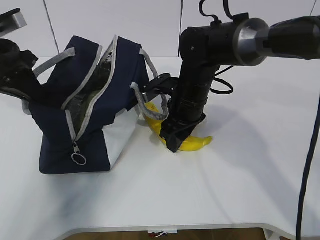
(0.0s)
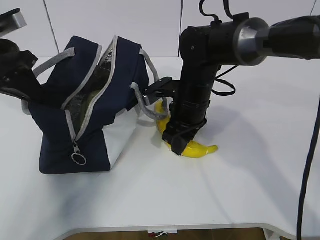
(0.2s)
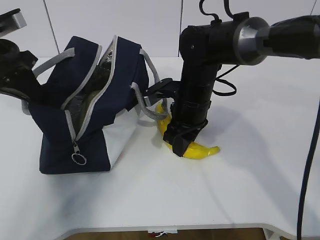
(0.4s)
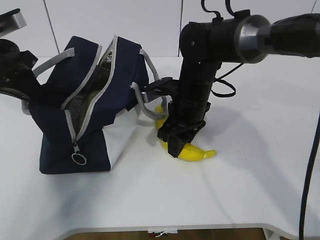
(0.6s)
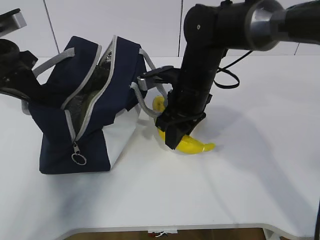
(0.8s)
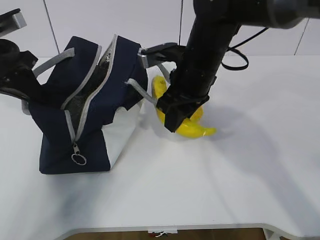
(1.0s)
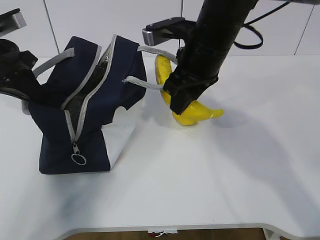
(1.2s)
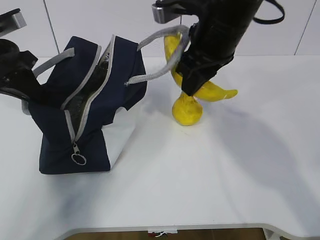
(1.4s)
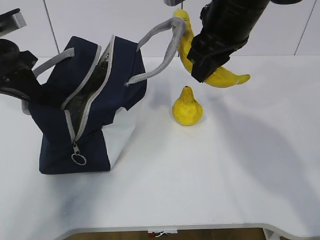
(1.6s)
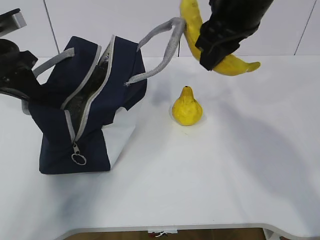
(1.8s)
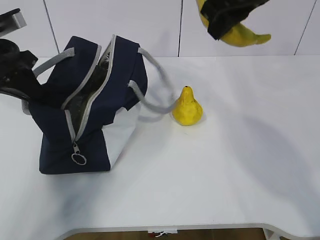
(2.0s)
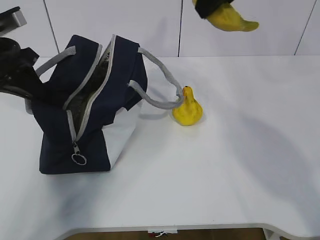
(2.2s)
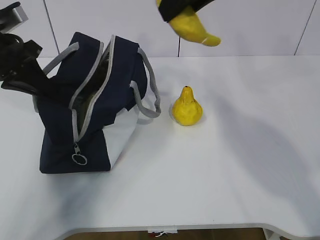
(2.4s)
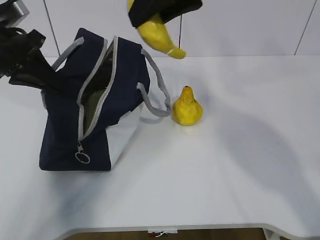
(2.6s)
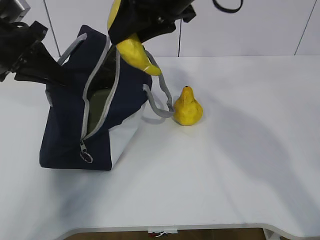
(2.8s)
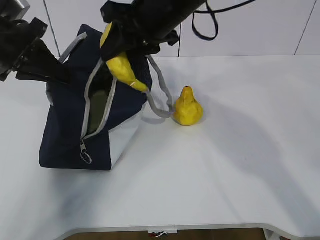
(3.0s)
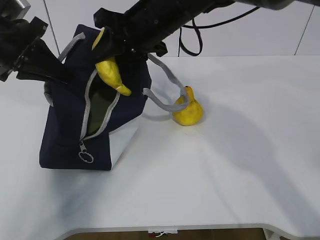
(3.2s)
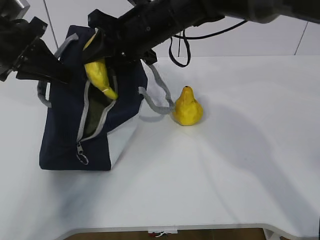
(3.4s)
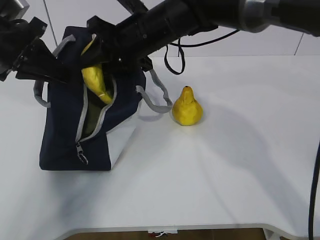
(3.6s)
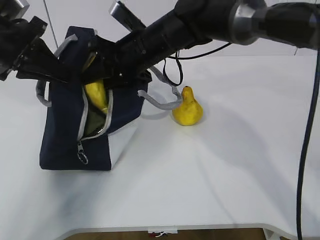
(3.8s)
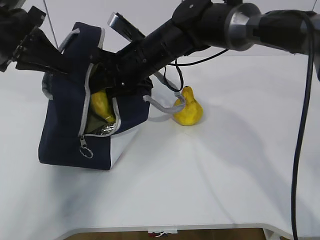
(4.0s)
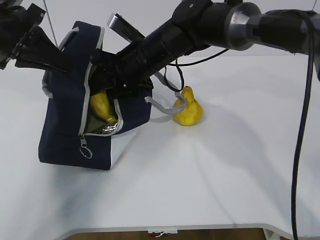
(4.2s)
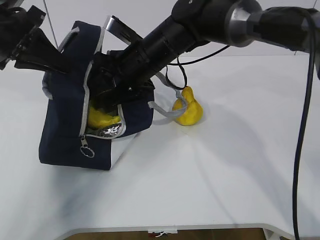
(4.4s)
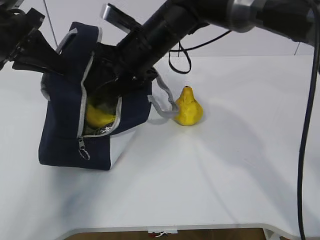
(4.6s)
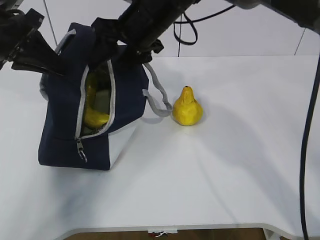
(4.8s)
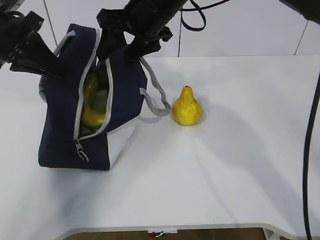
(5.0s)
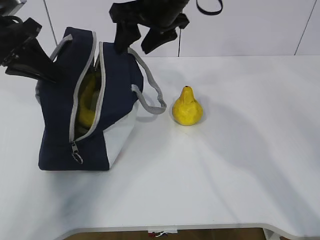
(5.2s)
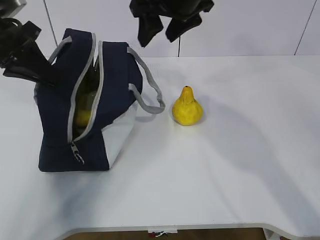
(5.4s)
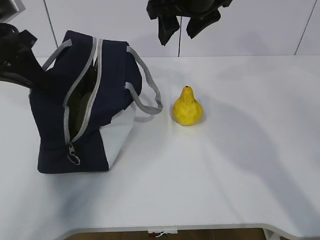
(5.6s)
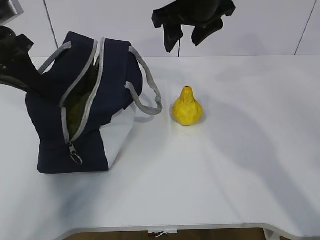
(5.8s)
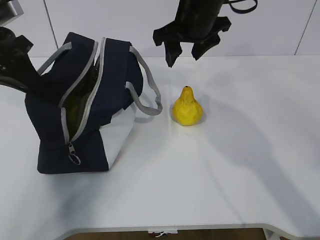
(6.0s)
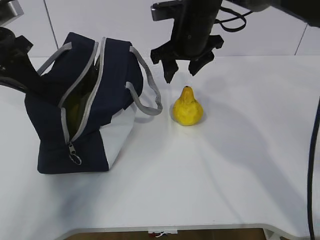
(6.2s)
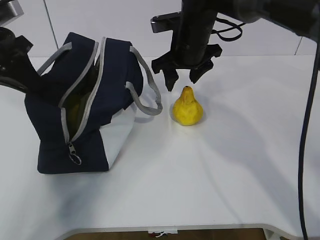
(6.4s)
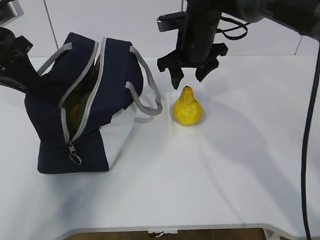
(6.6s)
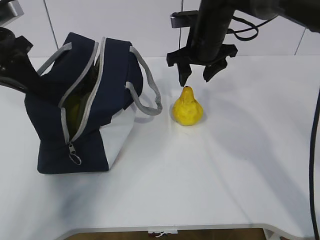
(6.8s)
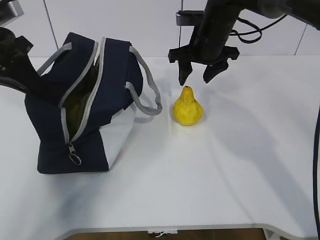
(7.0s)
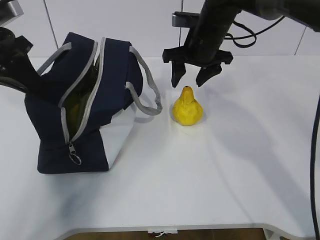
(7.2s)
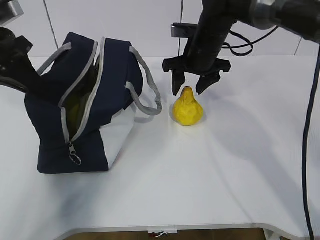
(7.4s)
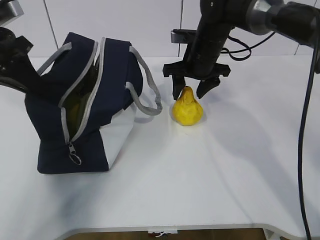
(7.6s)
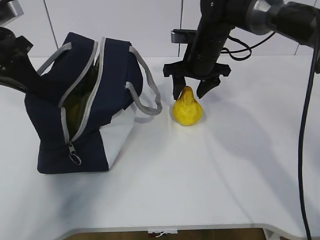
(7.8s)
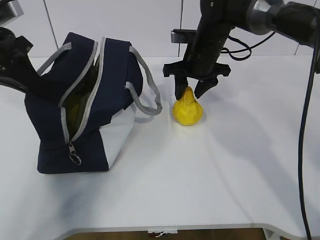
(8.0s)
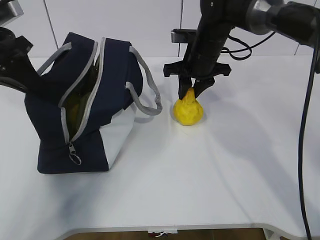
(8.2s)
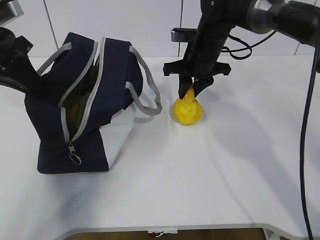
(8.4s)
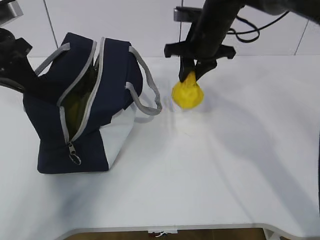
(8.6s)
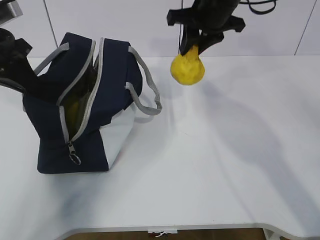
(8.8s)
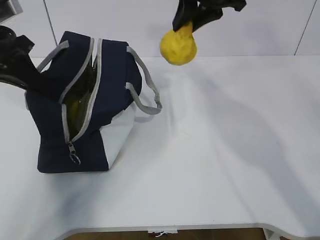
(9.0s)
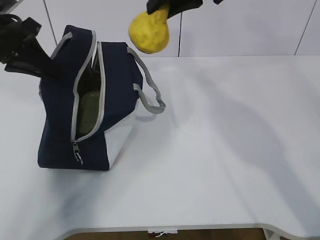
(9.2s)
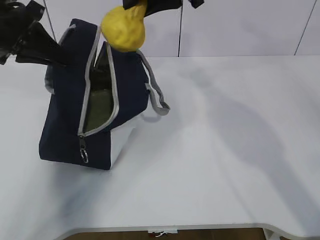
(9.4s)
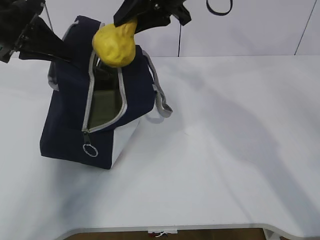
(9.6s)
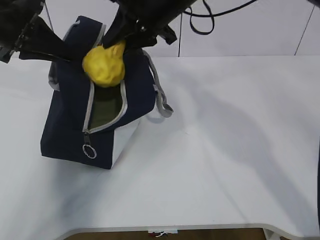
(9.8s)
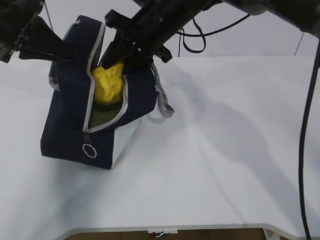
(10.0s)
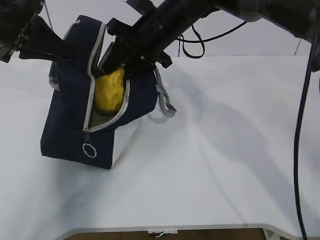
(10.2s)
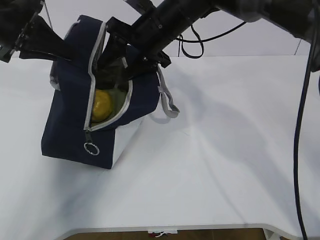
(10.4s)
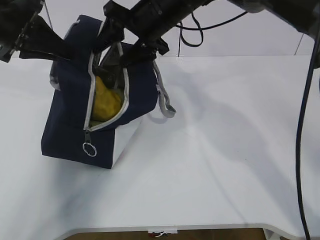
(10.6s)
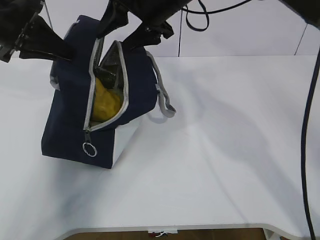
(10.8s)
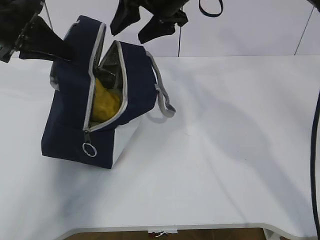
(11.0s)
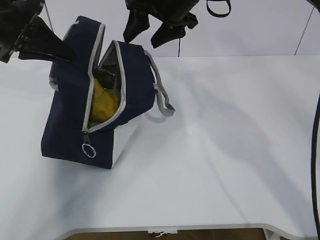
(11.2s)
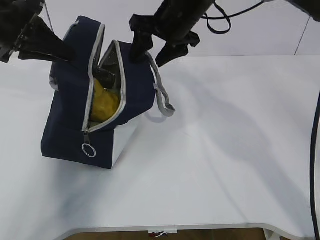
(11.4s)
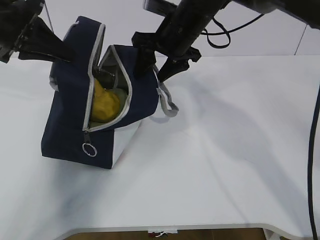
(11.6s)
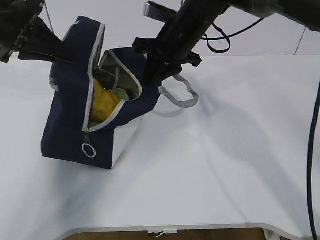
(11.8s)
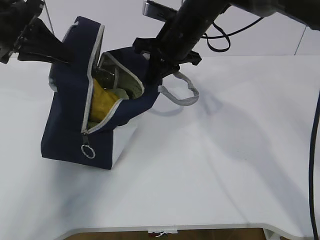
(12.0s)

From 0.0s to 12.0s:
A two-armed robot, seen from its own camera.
Step, from 0.0s to 2.8s: Grab the pear with your right hand.
Step, from 5.0s to 5.8s: Grab the lunch bag with your right hand.
Step, from 6.0s to 8.4s: Move the lunch bag to the right.
From 0.0s to 1.6s: The right gripper travels upward by about 20 cm.
From 1.6s to 3.0s: The right gripper goes approximately 5 cm to the left, and goes upward and returns, roughly 10 cm each way.
From 3.0s to 4.4s: The right gripper shifts approximately 10 cm downward.
From 4.4s to 6.0s: The right gripper is displaced to the right and upward by about 10 cm.
From 6.0s to 7.6s: The right gripper goes some 10 cm downward.
From 7.6s to 9.0s: The right gripper moves upward, roughly 15 cm, and closes up.
From 9.0s to 10.4s: The right gripper heads to the left and downward, covering approximately 10 cm, and opens.
From 10.4s to 12.0s: The right gripper closes.

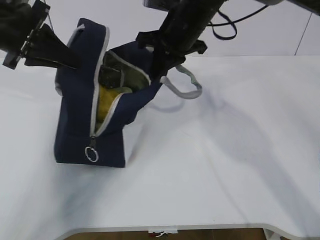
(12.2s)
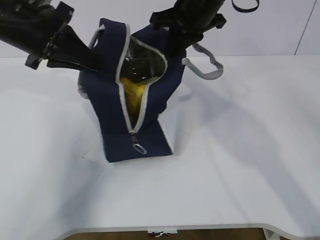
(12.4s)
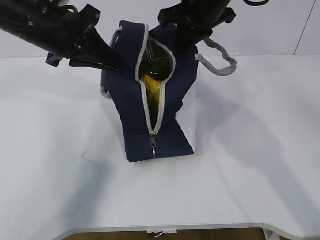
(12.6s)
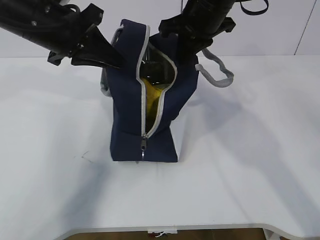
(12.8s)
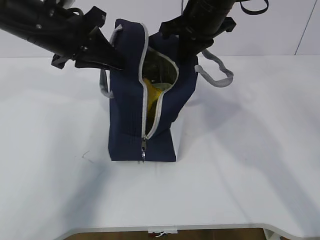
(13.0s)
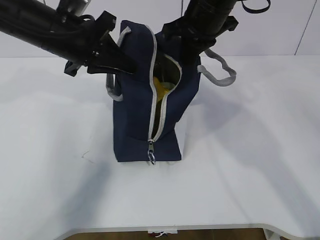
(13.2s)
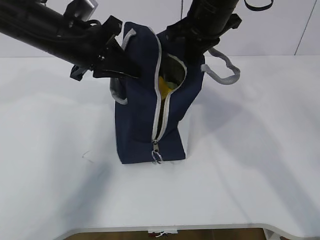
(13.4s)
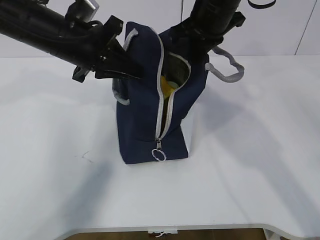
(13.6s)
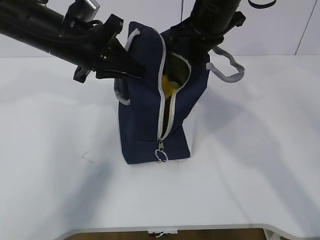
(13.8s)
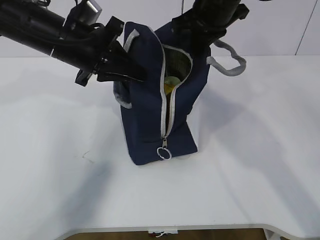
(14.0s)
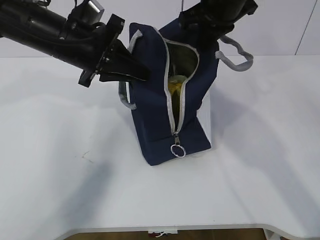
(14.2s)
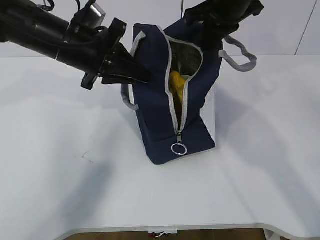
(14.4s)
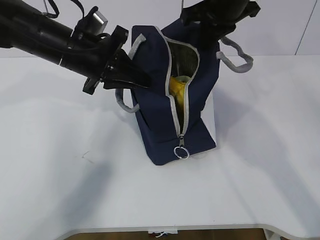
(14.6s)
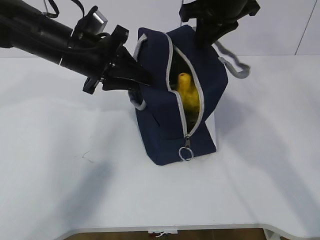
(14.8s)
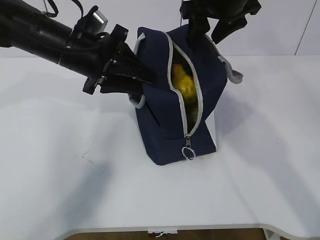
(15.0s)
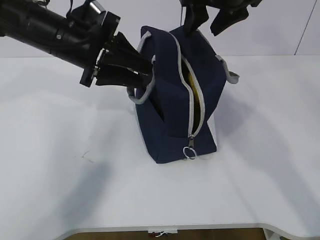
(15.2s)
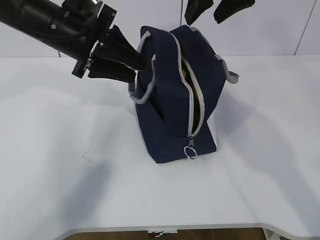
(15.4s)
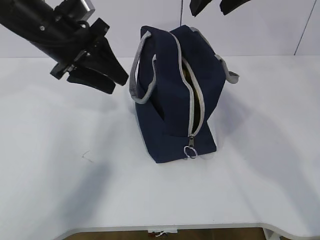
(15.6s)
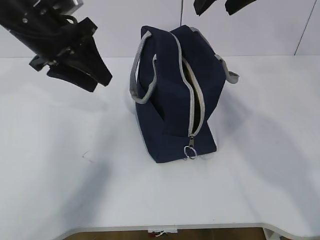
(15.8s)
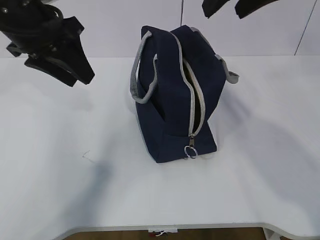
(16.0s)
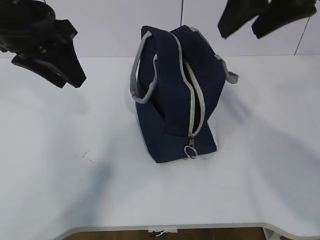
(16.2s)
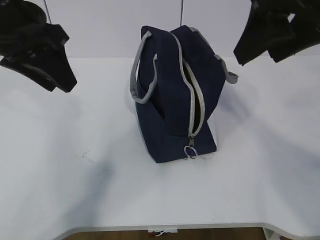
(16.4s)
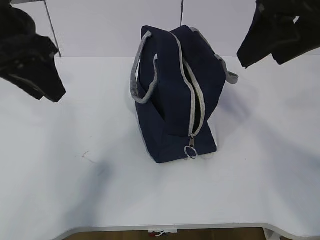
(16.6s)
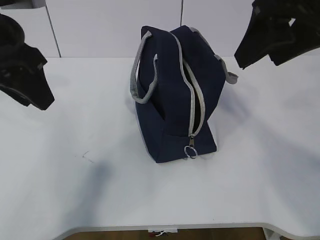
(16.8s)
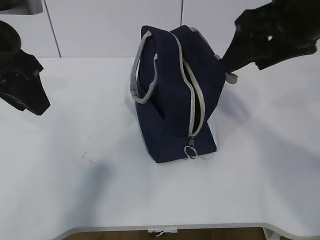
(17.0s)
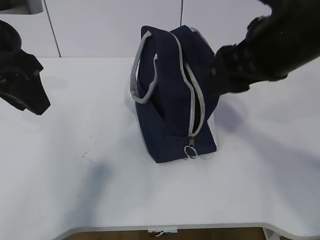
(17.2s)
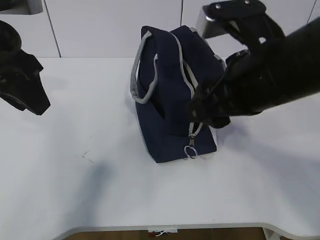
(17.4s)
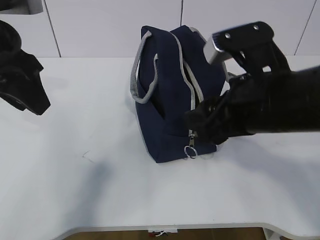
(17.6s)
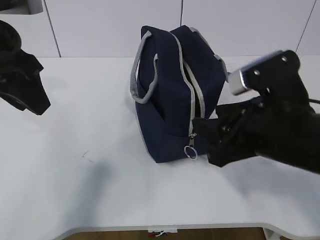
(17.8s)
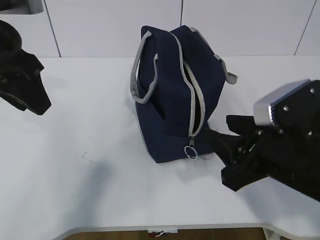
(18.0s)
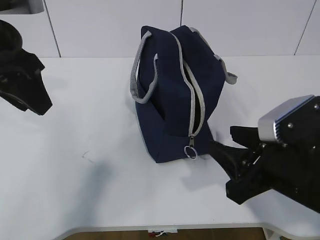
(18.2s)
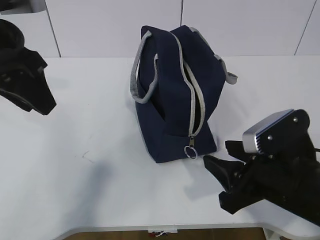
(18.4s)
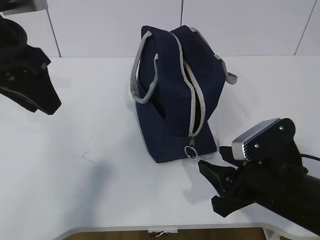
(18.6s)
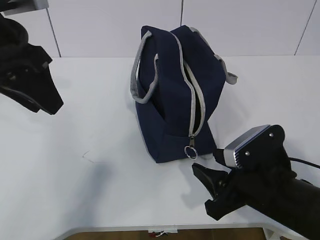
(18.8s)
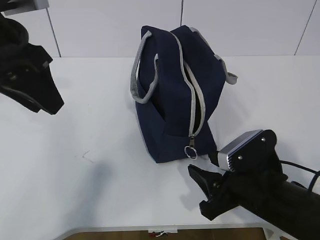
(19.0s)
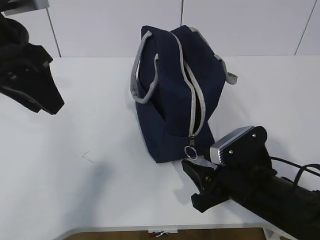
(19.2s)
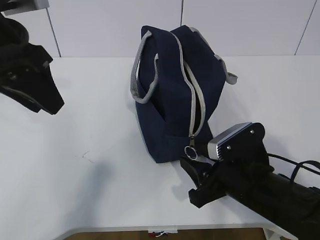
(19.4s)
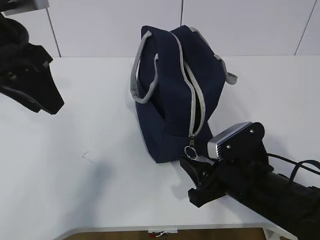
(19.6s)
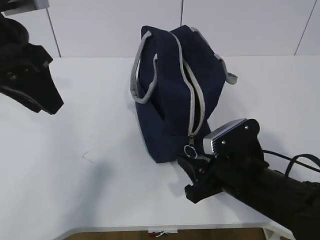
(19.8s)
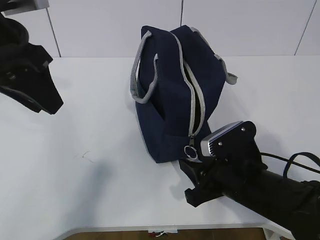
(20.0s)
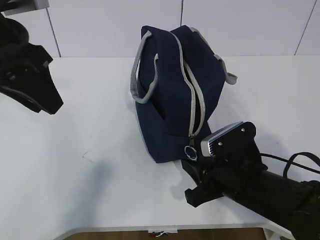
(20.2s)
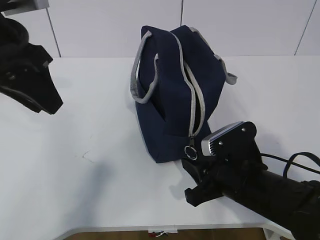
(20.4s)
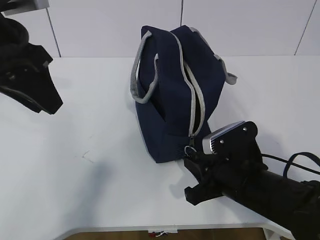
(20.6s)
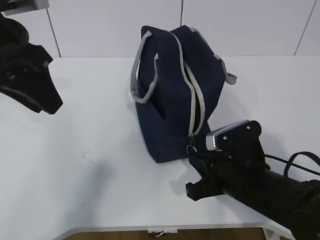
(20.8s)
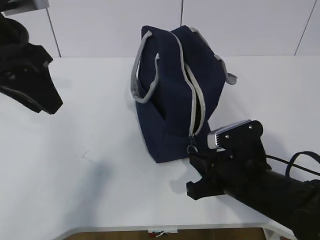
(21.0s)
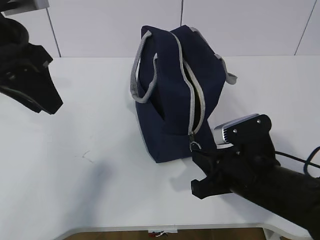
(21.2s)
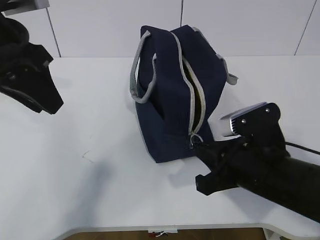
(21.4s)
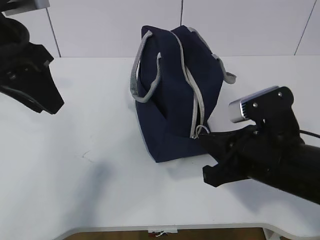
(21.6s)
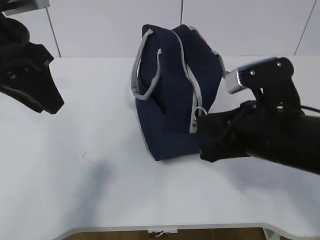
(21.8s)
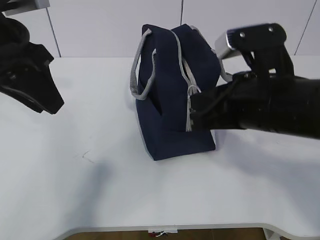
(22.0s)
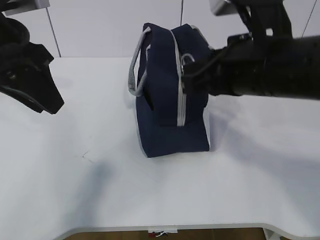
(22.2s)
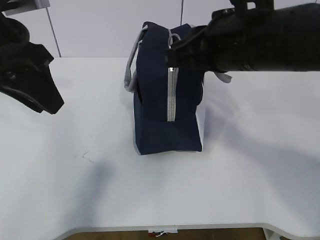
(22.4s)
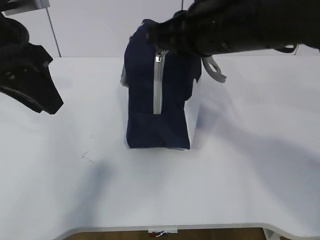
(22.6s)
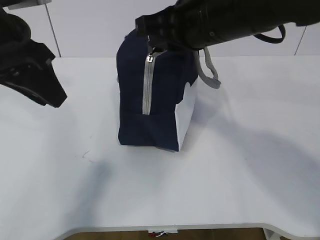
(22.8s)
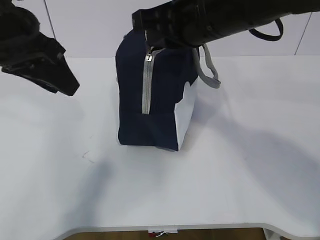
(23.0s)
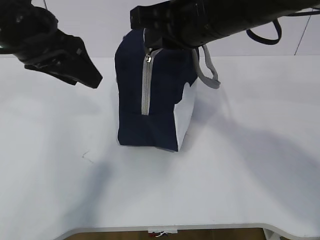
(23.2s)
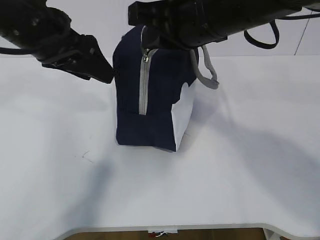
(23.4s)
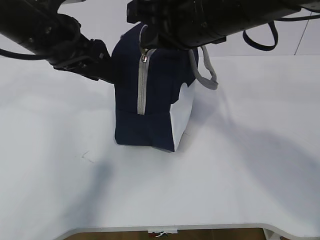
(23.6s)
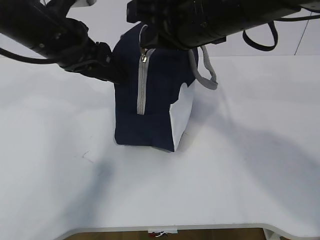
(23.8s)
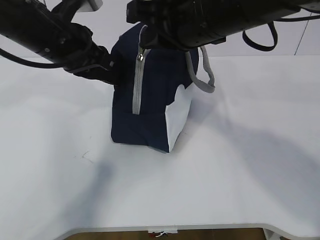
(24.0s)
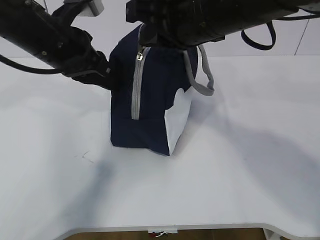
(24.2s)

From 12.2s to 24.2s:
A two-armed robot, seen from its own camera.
Step, from 12.2s to 17.6s: Grab the lunch bag with your left hand.
Step, from 17.8s to 22.0s: Pull the zipper with your right hand.
From 12.2s to 13.8s: The right gripper moves roughly 5 cm. Meanwhile the left gripper shifts approximately 10 cm to the right.
From 13.8s to 15.2s: The left gripper opens. Meanwhile the right gripper opens up.
From 15.2s to 16.6s: The left gripper shifts roughly 10 cm backward and upward. The right gripper goes about 15 cm backward.
From 16.6s to 18.2s: The right gripper travels downward by about 20 cm.
From 18.2s to 19.8s: The right gripper shifts roughly 10 cm downward.
From 19.8s to 21.2s: The right gripper closes up.
From 21.2s to 22.6s: The right gripper moves upward, about 20 cm.
From 22.6s to 24.2s: The left gripper moves forward and downward, roughly 10 cm, and closes.
